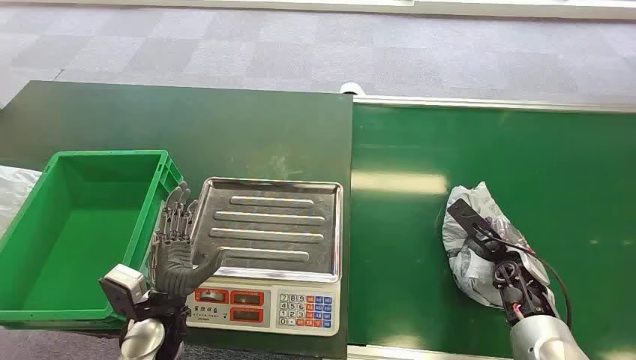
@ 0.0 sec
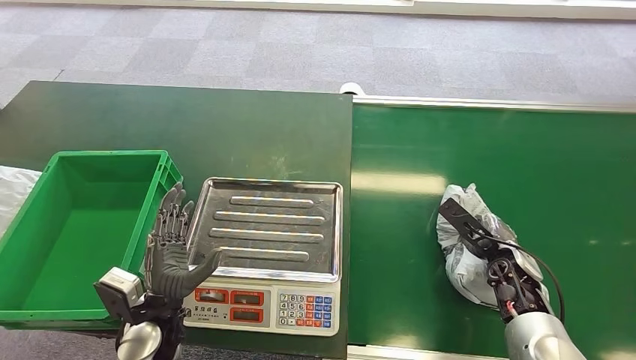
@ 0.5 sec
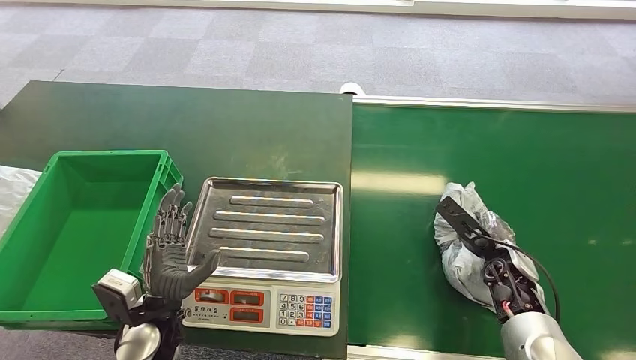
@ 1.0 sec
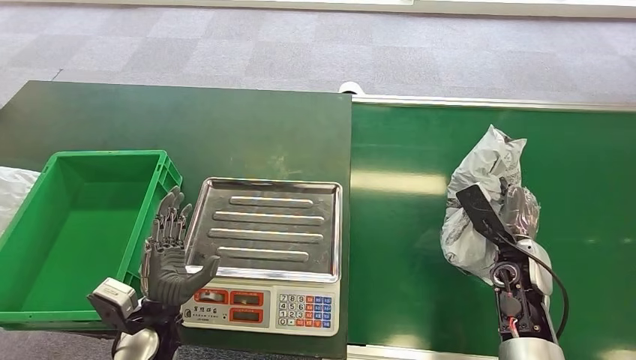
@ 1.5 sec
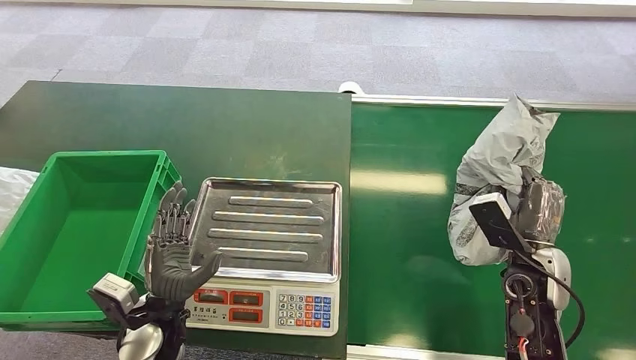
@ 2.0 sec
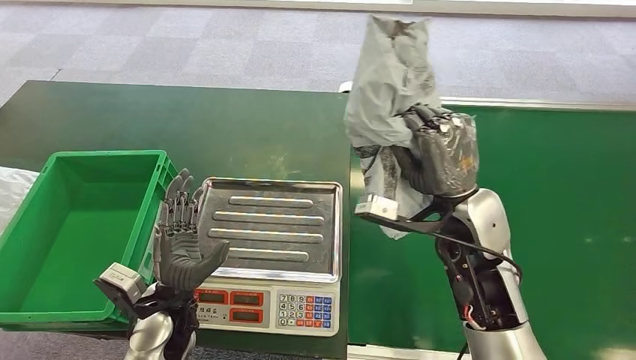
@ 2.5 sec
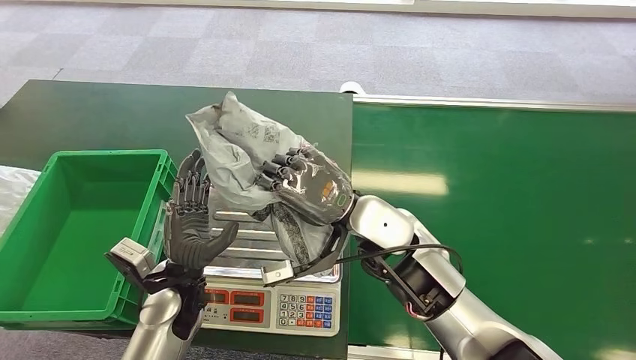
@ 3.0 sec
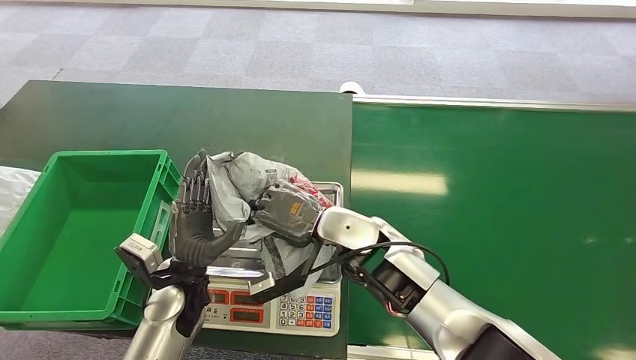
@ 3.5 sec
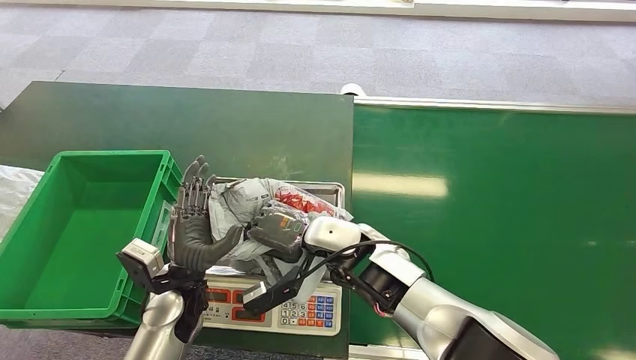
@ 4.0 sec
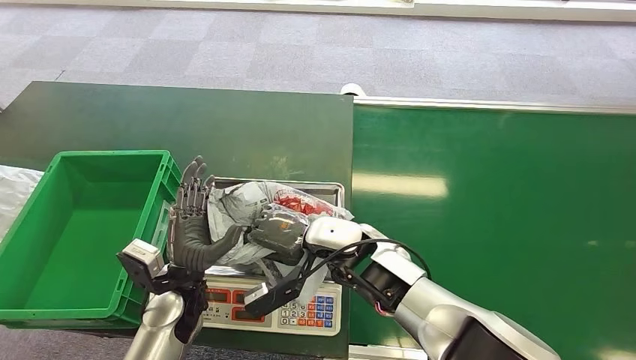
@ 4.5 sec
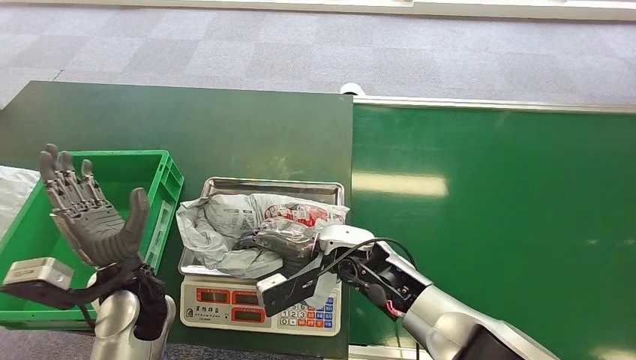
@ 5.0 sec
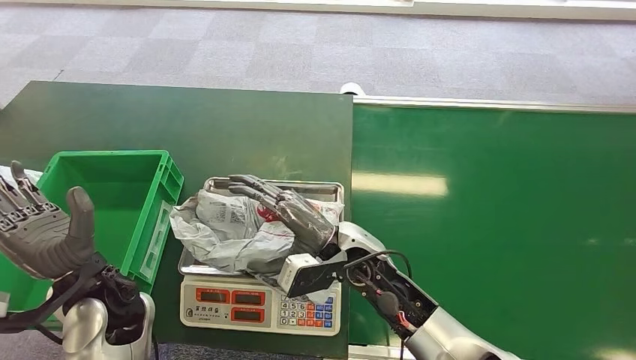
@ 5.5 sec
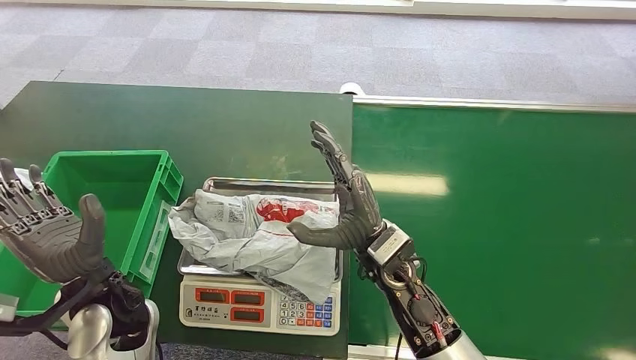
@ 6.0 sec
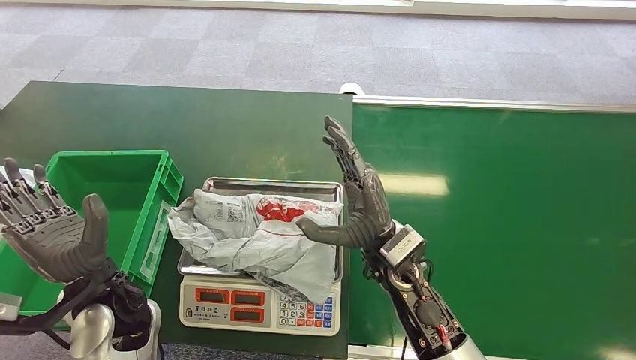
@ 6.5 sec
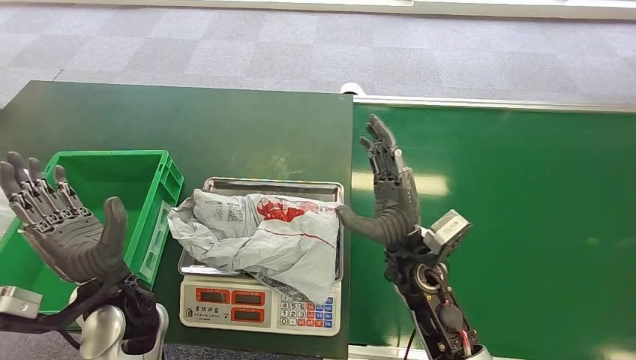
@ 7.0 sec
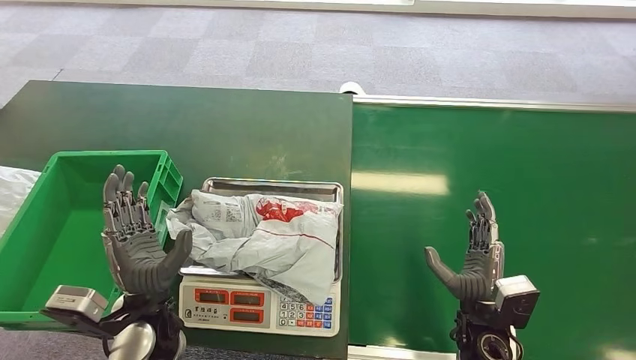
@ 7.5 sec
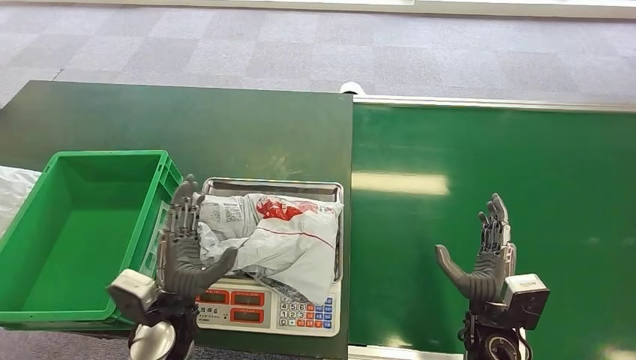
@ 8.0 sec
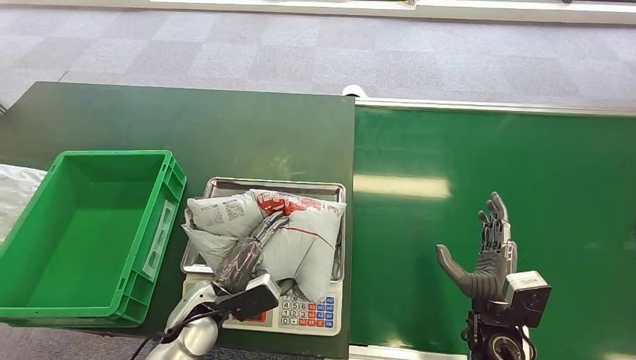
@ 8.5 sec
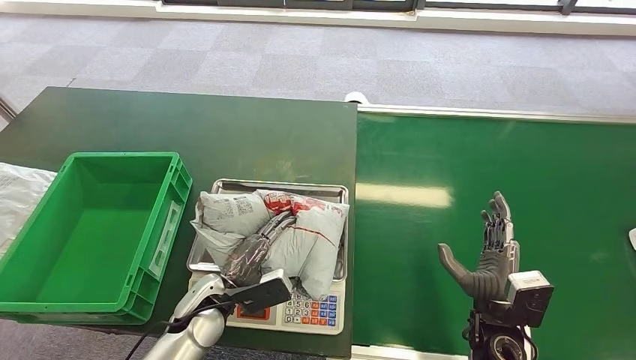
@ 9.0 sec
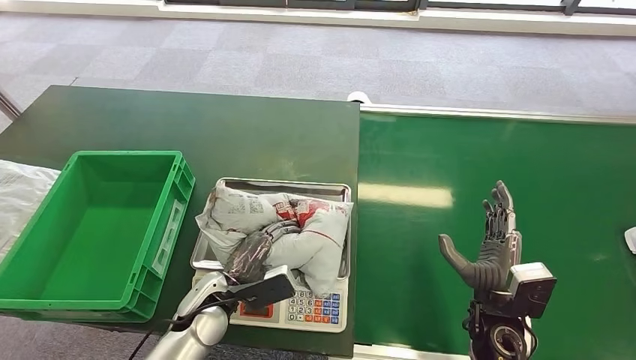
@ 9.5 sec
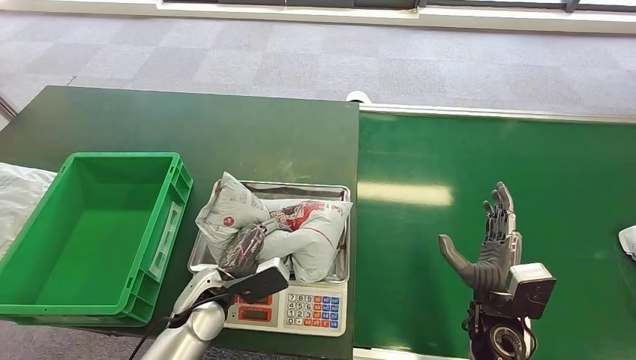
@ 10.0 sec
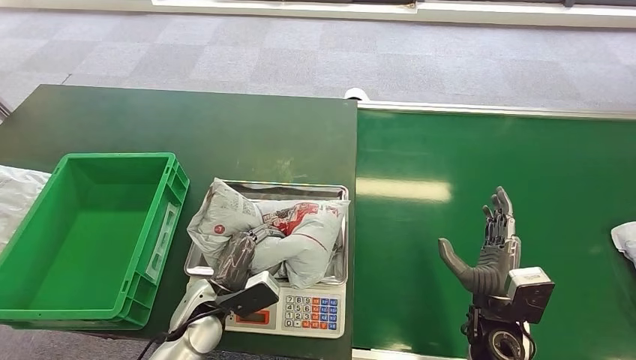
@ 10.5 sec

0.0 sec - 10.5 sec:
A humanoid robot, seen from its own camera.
Task of the whole recording: Weigh the package on the weighing device and place it in the left basket.
Step, 0.0 sec - 1.5 sec: Pick up the package from the conveyor belt.
Step, 3.0 sec - 5.5 sec: Place the package onto the inbound machine.
8.5 sec - 10.5 sec: The hands stay close to where they were, moving slightly.

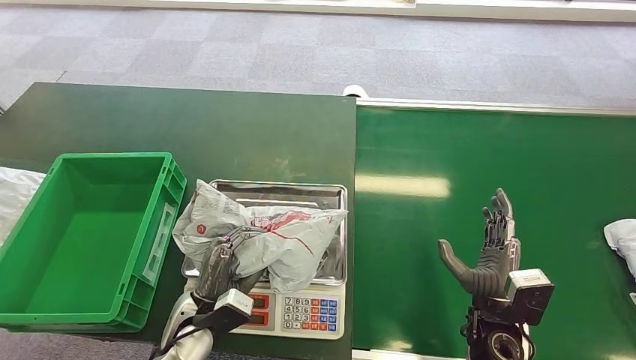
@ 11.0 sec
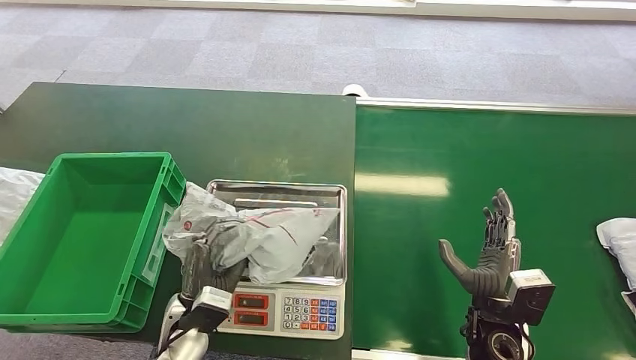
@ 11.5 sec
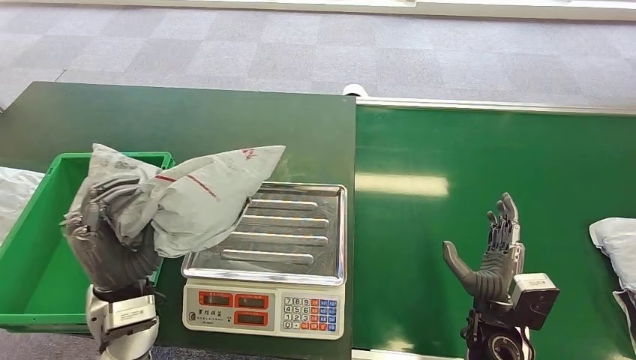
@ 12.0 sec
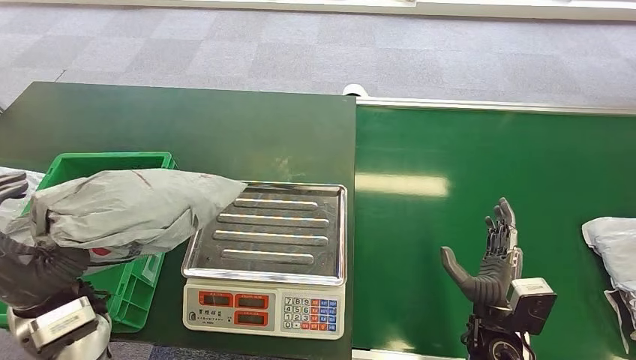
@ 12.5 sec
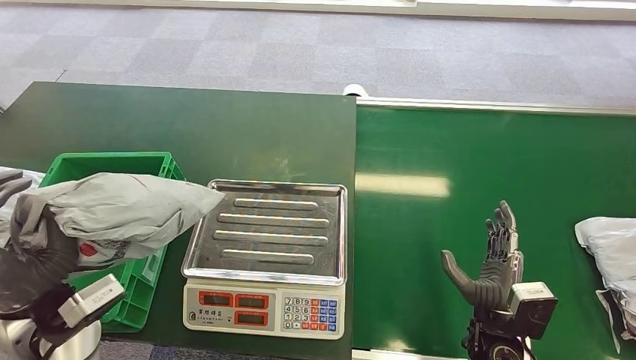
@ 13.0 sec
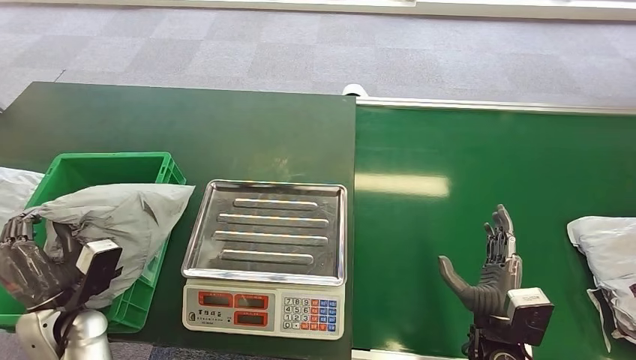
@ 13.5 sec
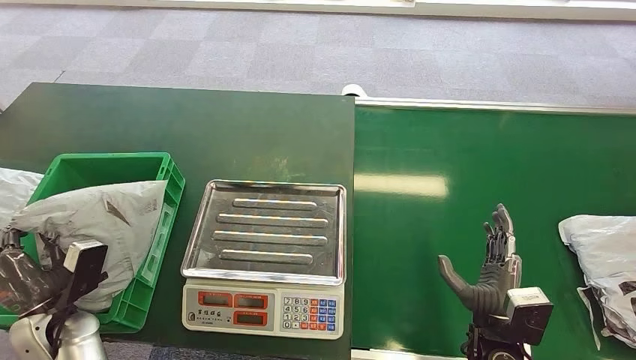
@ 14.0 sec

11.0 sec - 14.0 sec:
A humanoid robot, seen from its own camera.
Task of the whole recording: Weigh the package on the weighing device and place it in the left basket.
Step, 13.0 sec - 14.0 sec: Place the package into the parcel locker.
12.5 sec - 14.0 sec: The left hand goes approximately 15 cm downward and to the left.
